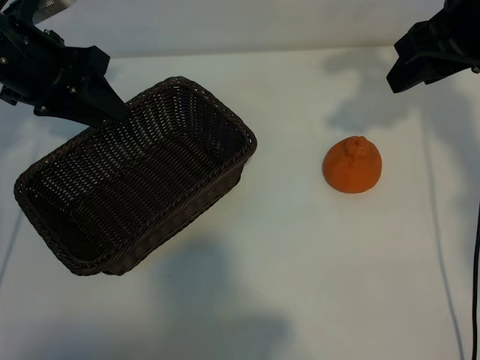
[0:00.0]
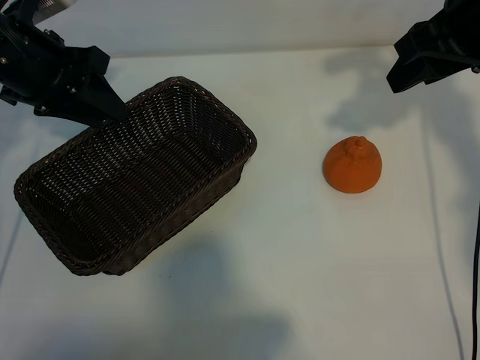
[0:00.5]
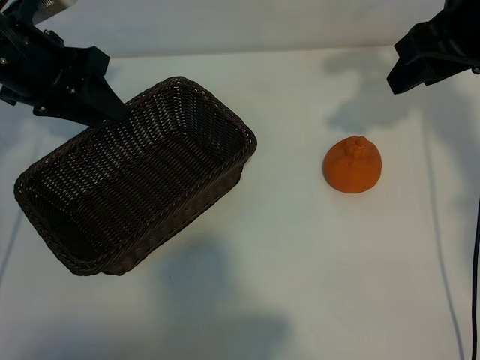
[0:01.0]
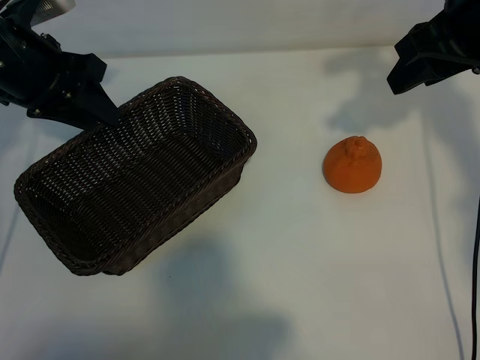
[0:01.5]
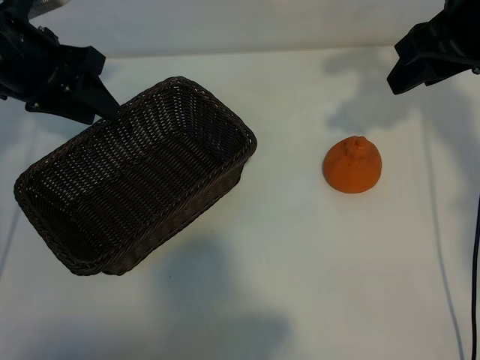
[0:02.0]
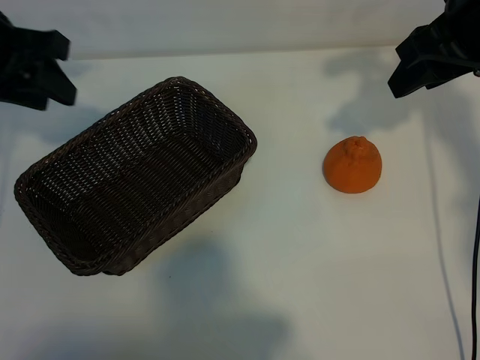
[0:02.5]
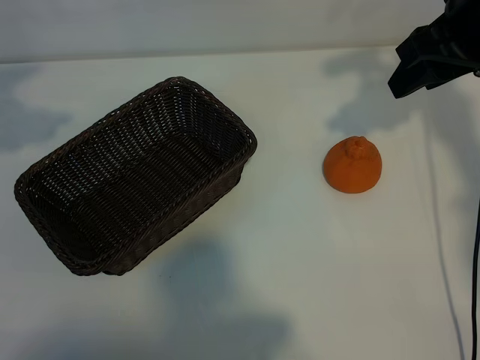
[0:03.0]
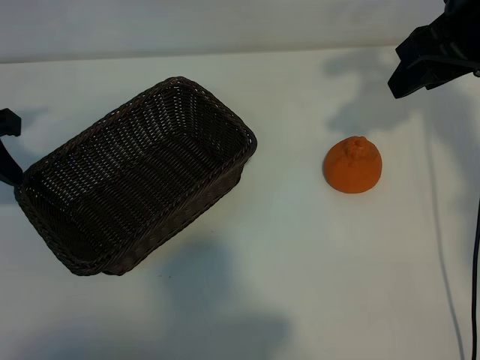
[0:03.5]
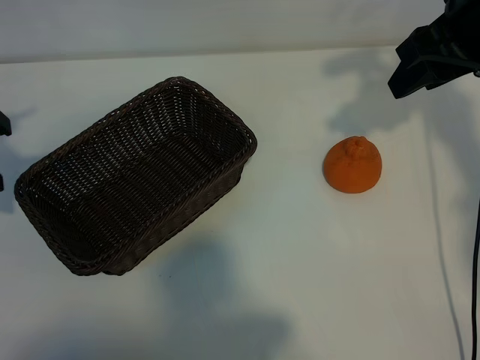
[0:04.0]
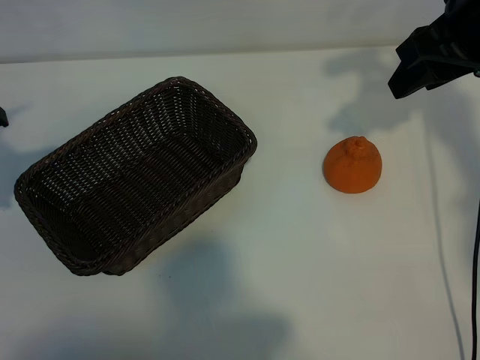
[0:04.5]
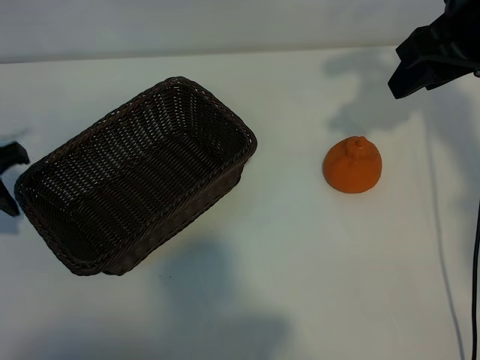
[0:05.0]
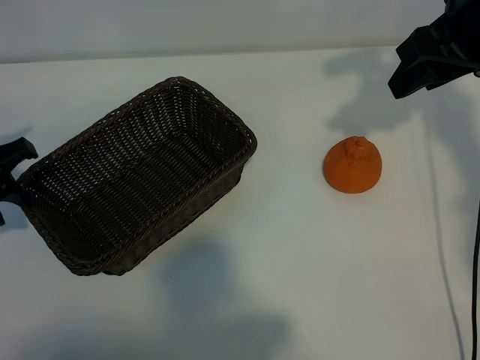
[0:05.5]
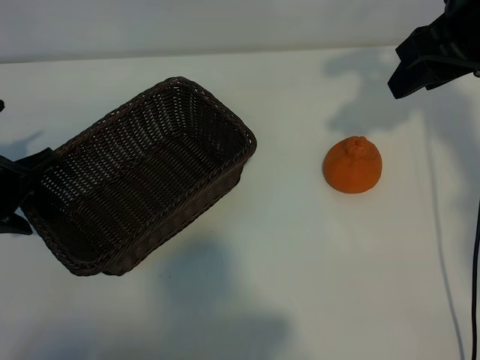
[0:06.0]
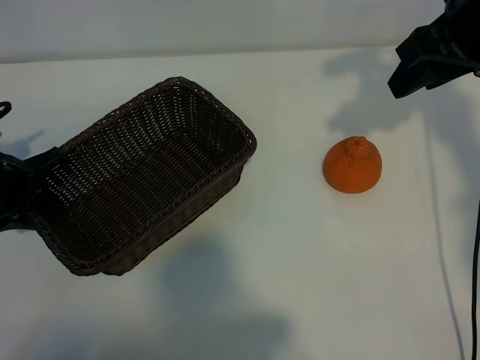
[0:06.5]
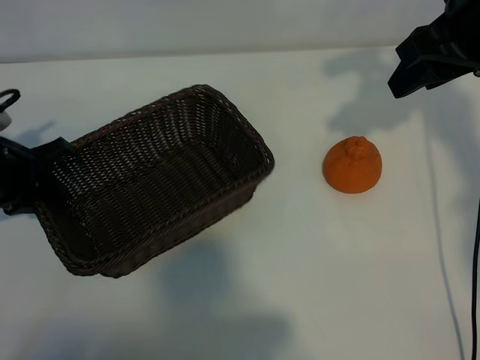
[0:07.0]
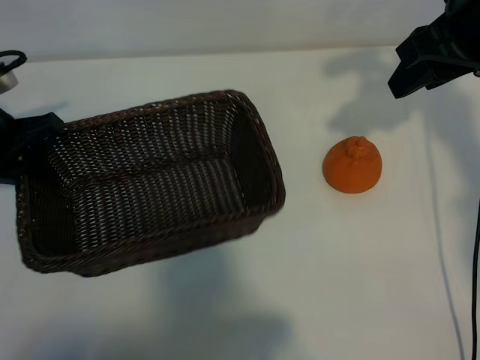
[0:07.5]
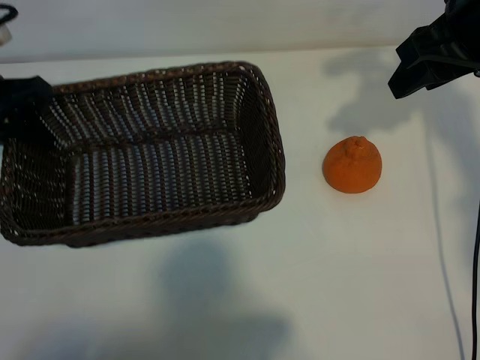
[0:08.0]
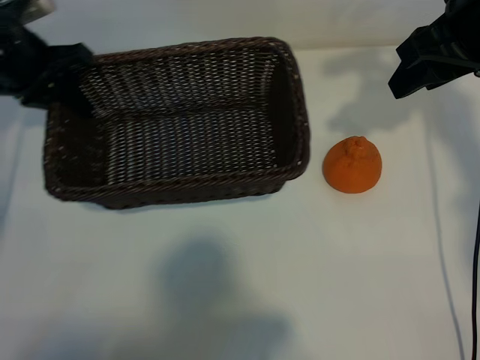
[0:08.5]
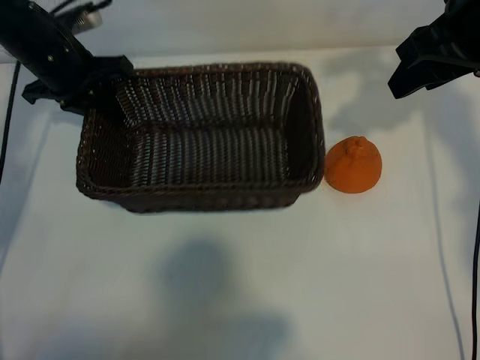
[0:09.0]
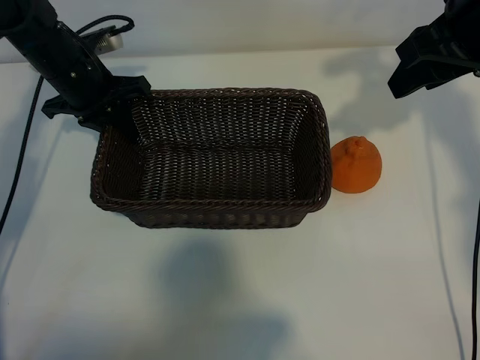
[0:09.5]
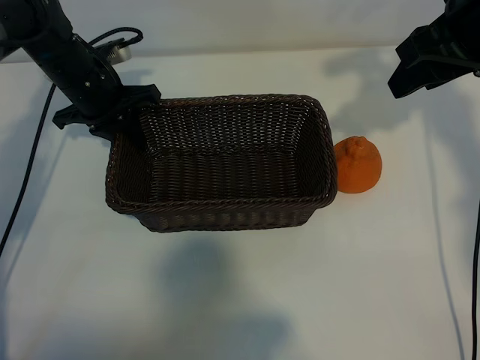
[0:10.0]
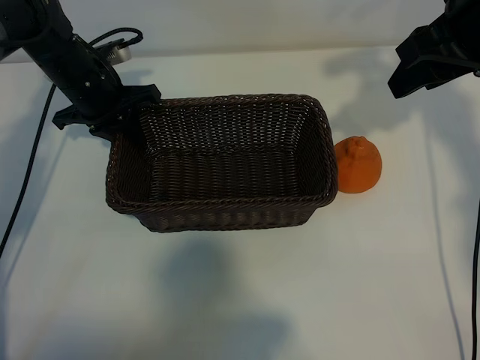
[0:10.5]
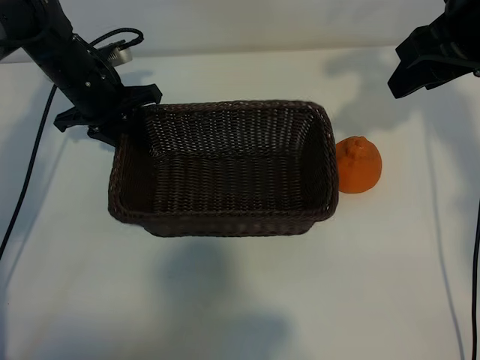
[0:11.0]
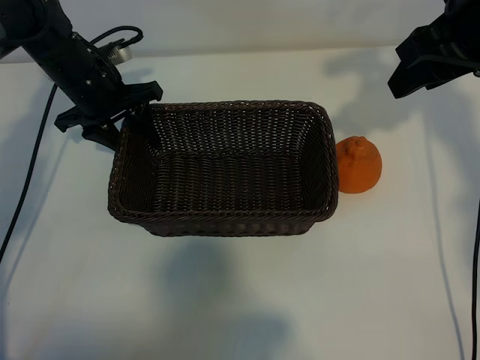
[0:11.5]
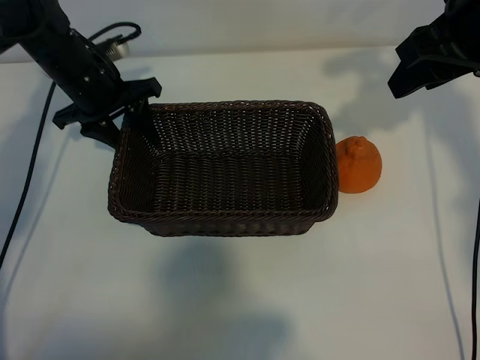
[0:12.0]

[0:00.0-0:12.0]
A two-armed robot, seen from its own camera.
Task of the whole recording: pick up the orange and put it into the basket.
Step, 0:01.0 to 0:06.5: Grasp the basket with left gripper.
Step, 0:07.0 to 0:10.5: Place the basket in the center of view with left gripper.

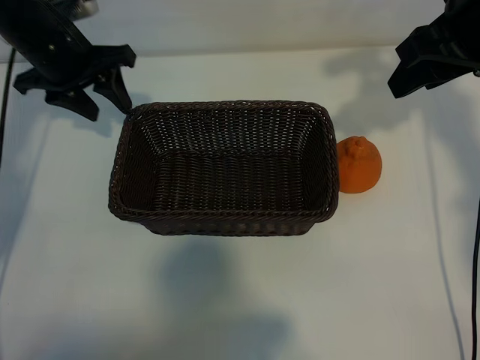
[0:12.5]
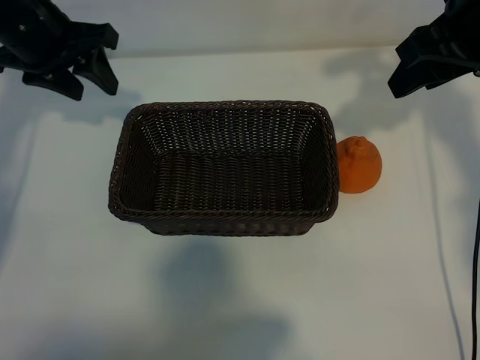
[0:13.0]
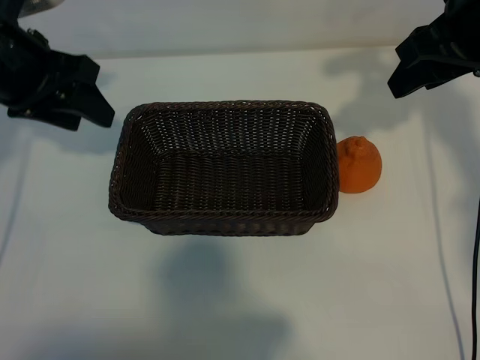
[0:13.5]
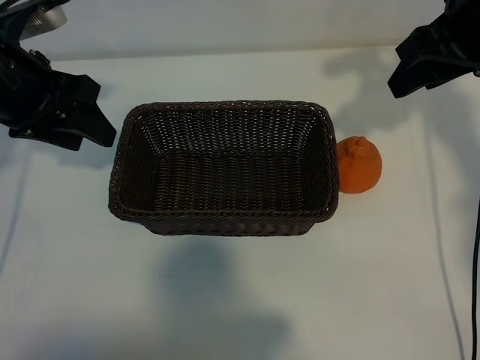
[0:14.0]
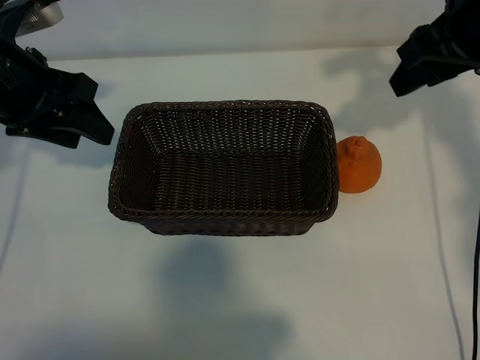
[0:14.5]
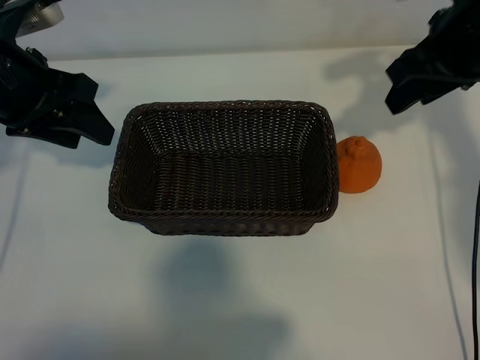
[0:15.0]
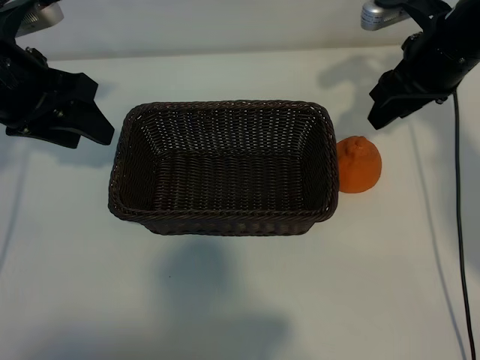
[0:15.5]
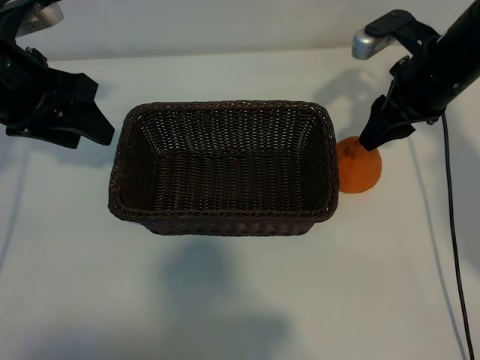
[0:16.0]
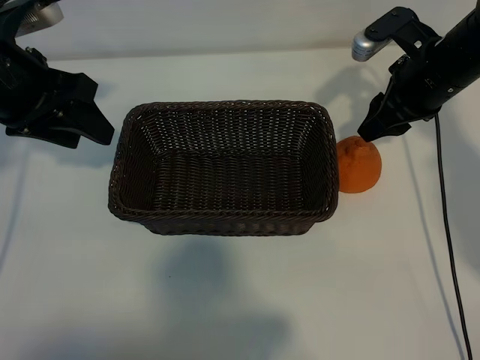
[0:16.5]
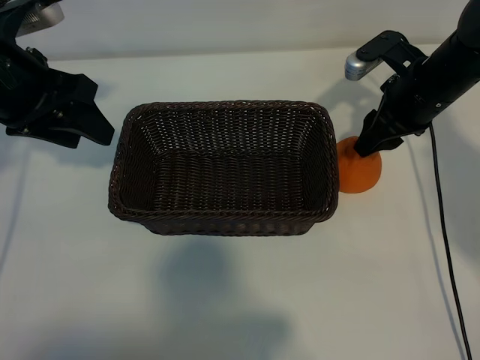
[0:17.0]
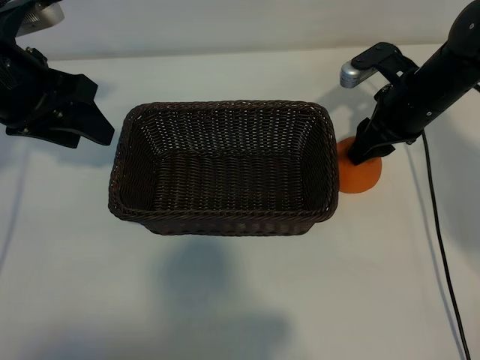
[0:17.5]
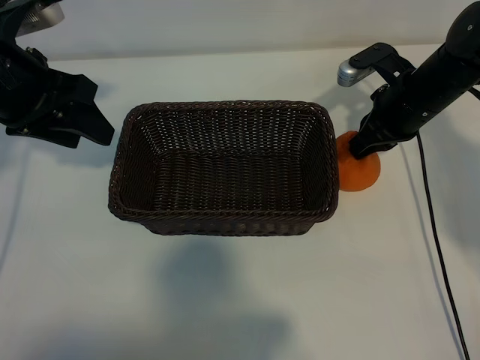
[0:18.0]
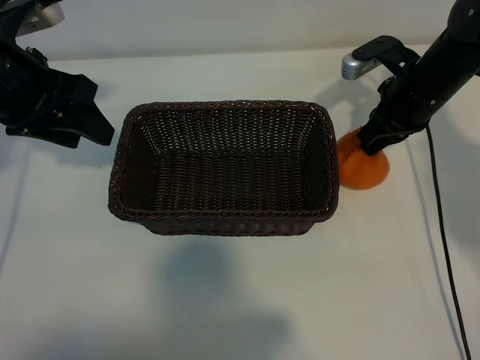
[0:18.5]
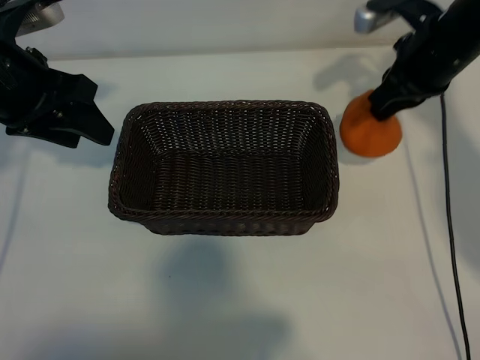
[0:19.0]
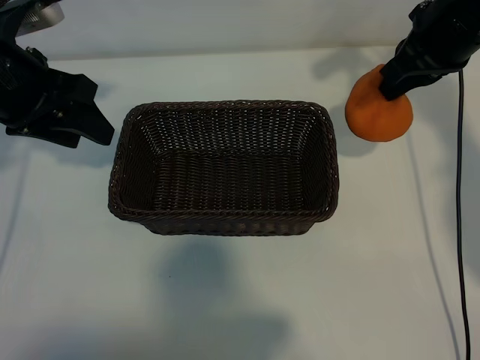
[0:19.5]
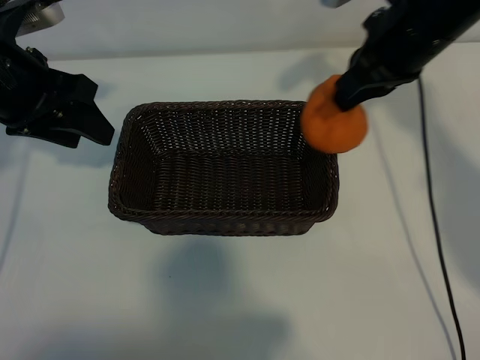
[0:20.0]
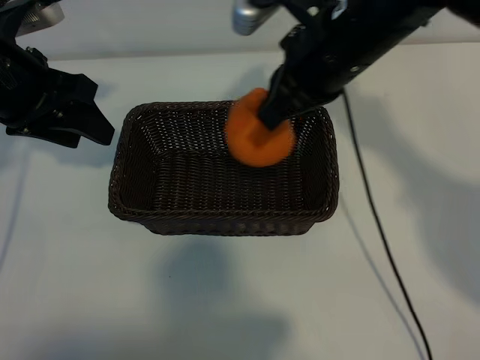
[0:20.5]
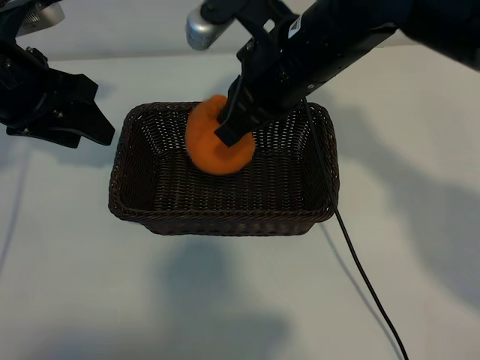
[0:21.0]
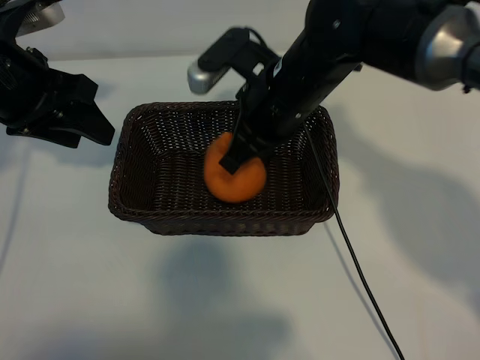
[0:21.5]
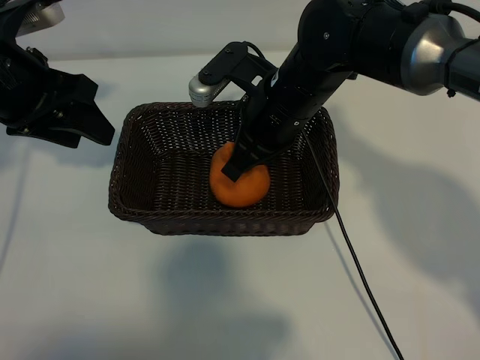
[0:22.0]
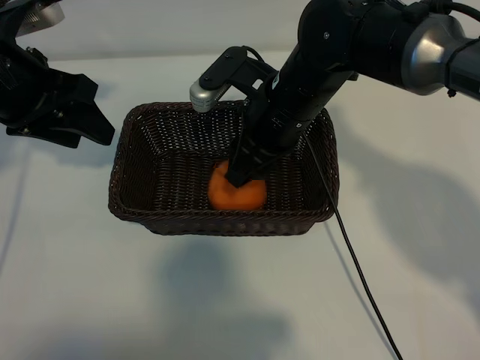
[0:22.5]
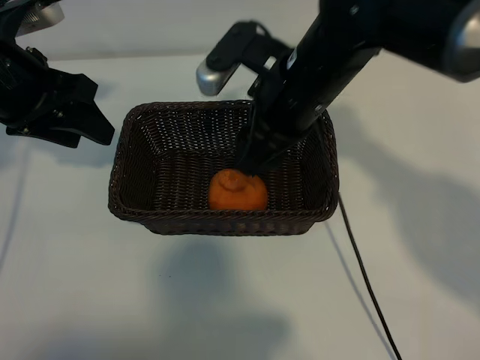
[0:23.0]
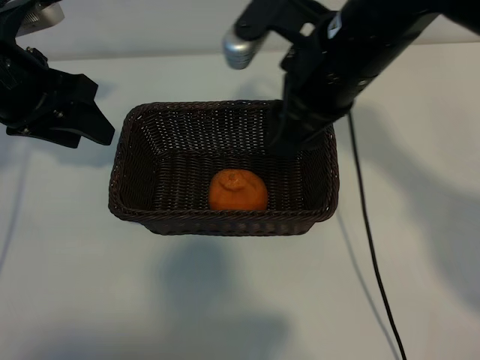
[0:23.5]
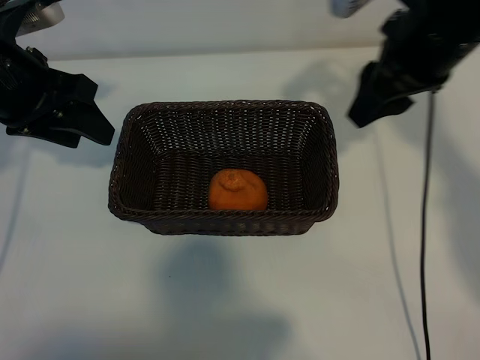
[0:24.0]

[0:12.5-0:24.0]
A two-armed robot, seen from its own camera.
Task of the whole recording: pick up the orange and put it into the basket.
Step, 0:12.5 to 0:18.0: Grasp the orange with right gripper.
Step, 0:18.5 to 0:22.5: Place the orange in the basket with right gripper.

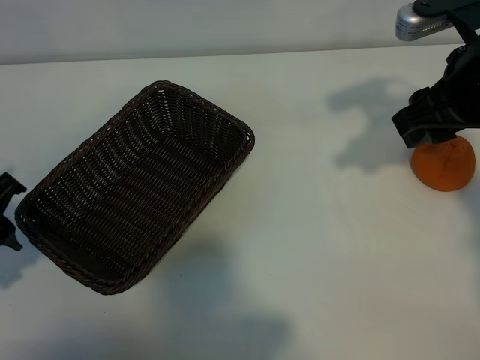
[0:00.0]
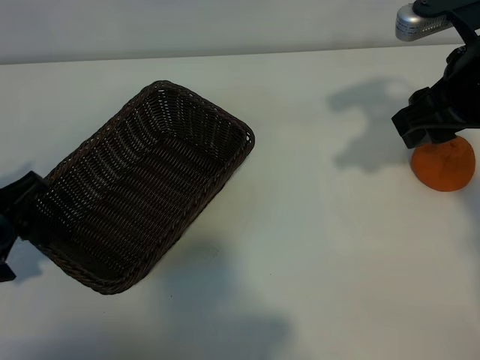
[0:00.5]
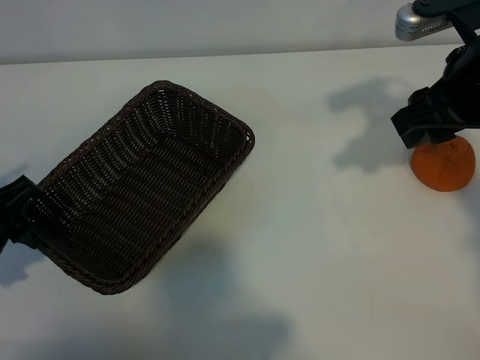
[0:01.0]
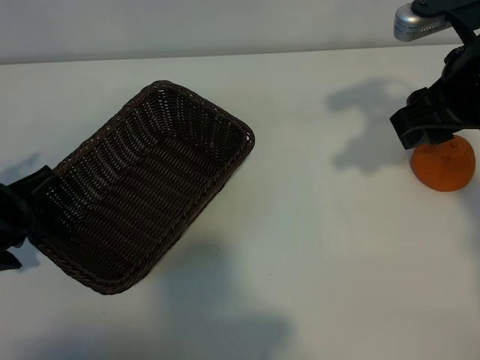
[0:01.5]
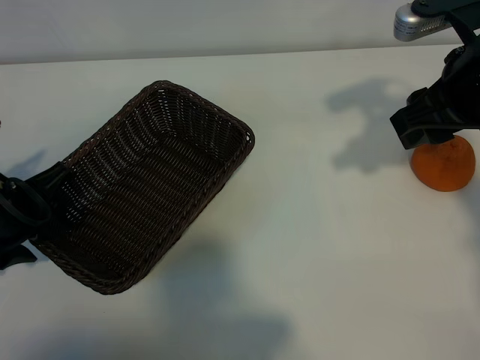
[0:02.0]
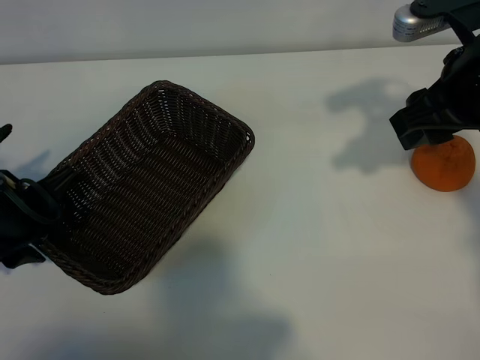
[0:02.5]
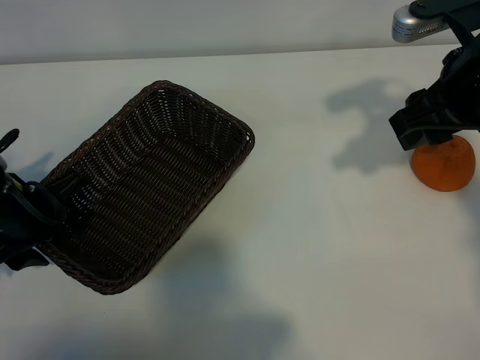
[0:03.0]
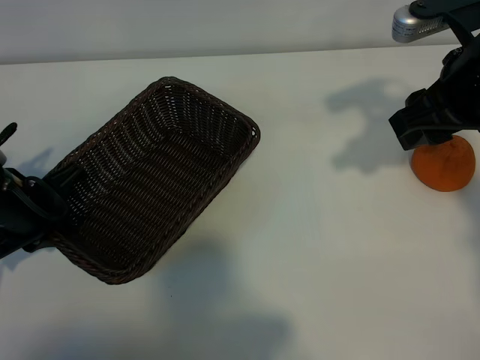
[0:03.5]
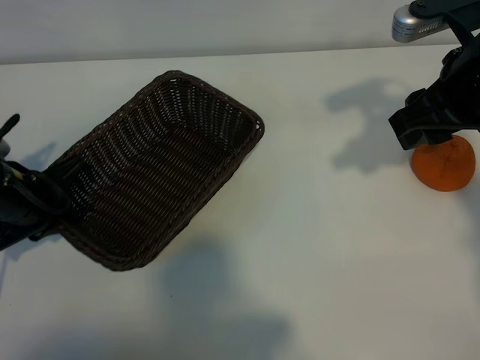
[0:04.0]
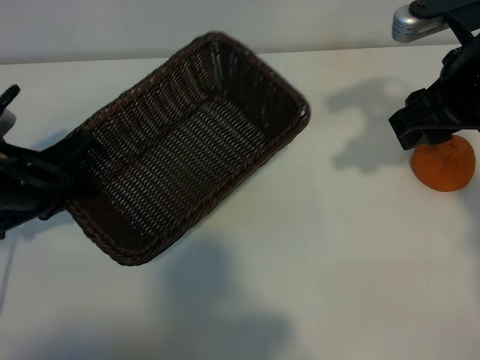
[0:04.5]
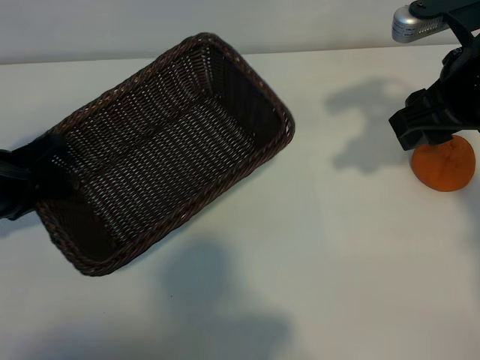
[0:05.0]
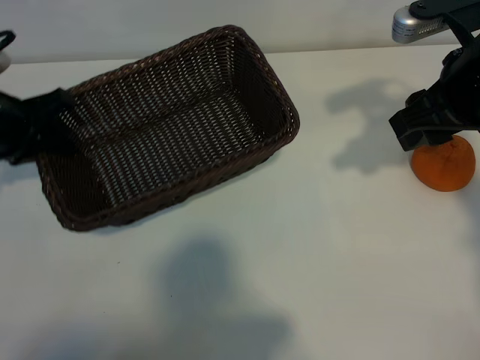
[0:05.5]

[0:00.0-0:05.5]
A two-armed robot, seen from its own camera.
Task of the whole recording: pick up the orange and put it into the basket.
Step, 0:00.0 to 0:03.5: Grasp the basket with left gripper.
